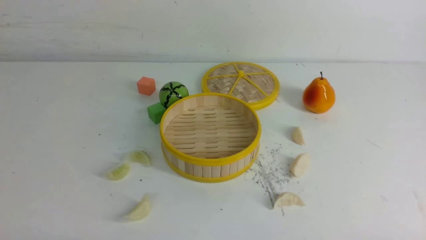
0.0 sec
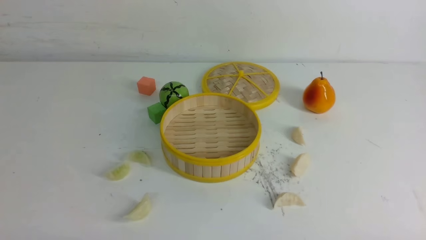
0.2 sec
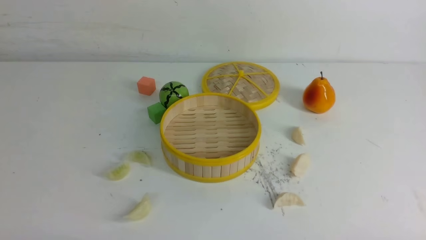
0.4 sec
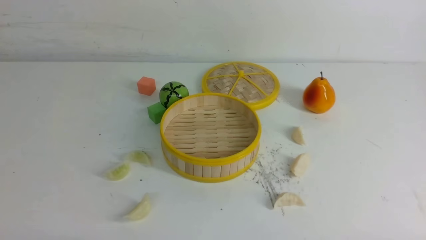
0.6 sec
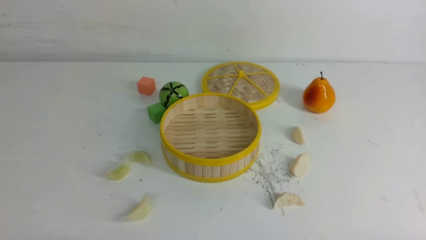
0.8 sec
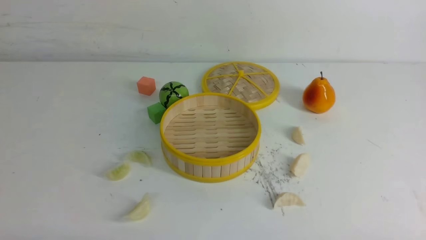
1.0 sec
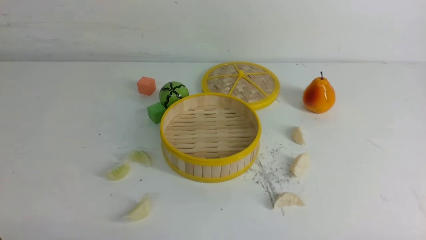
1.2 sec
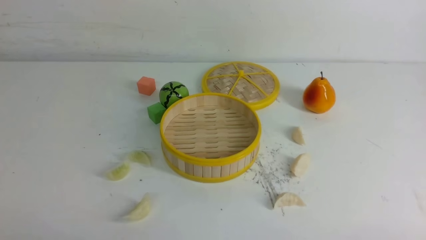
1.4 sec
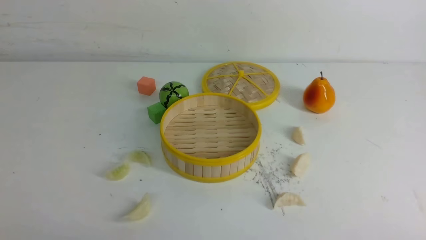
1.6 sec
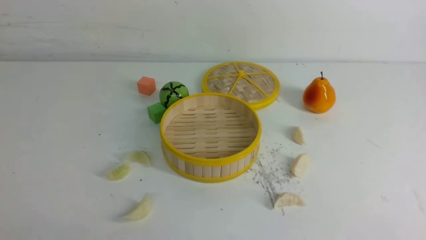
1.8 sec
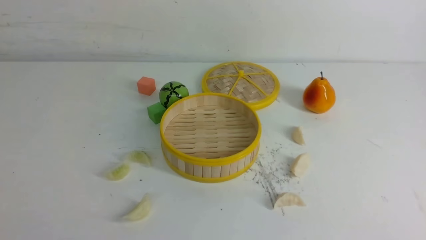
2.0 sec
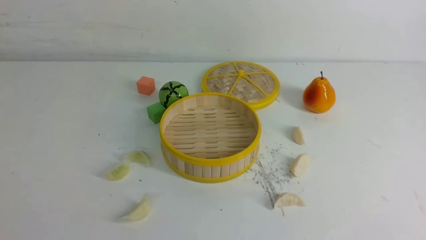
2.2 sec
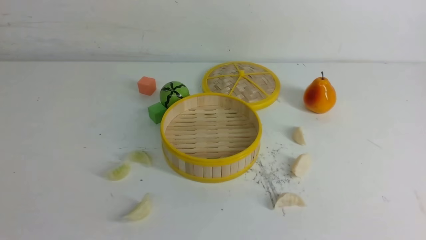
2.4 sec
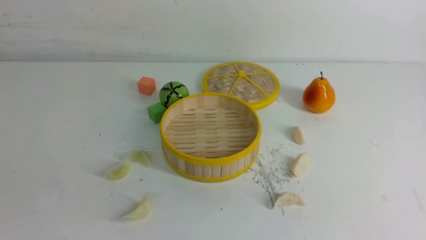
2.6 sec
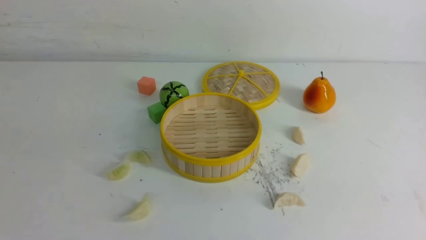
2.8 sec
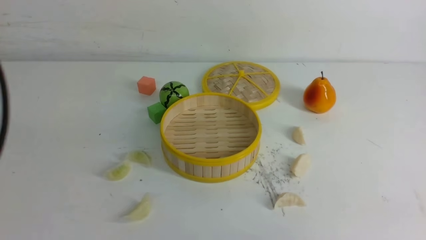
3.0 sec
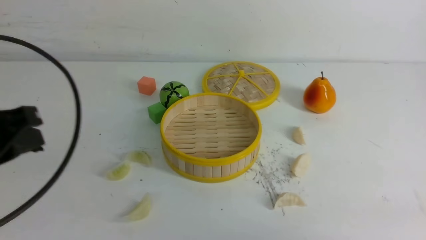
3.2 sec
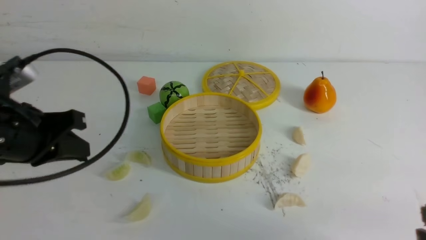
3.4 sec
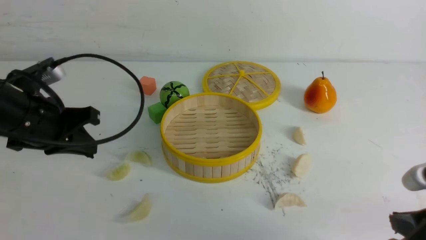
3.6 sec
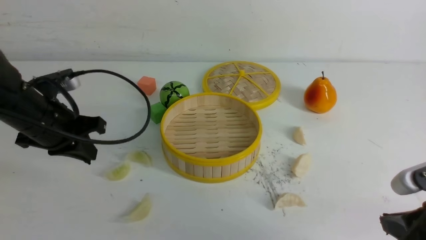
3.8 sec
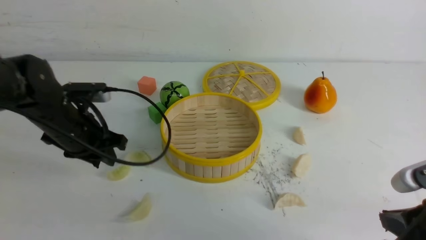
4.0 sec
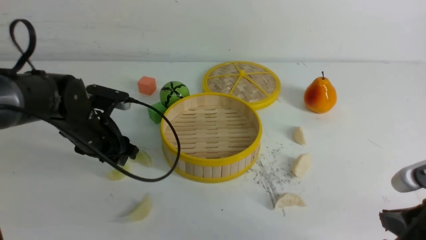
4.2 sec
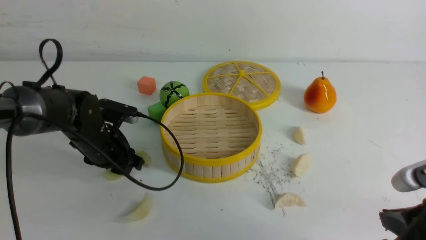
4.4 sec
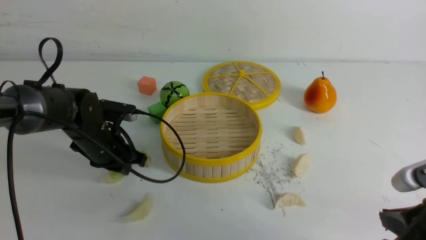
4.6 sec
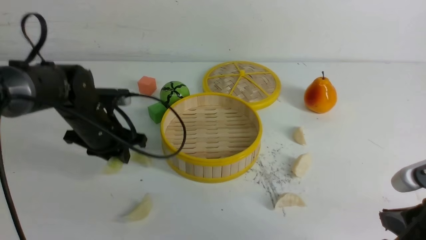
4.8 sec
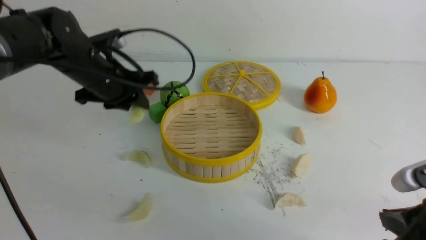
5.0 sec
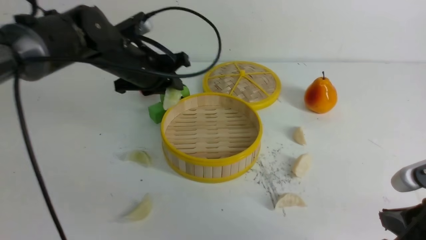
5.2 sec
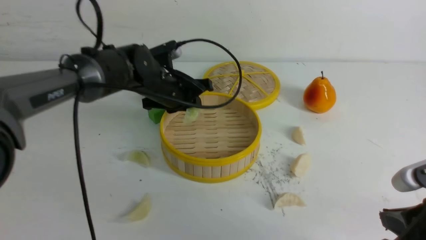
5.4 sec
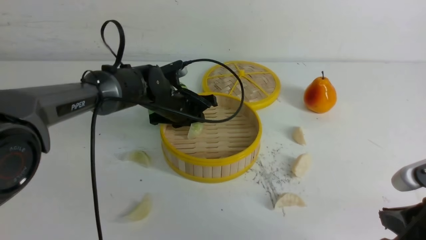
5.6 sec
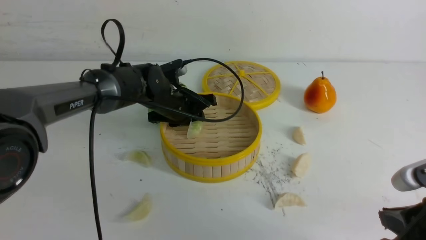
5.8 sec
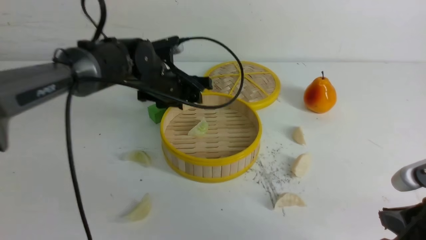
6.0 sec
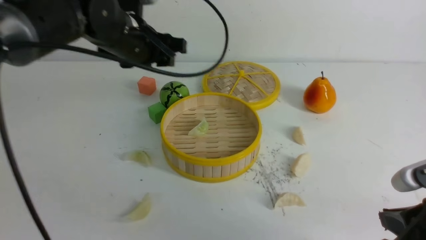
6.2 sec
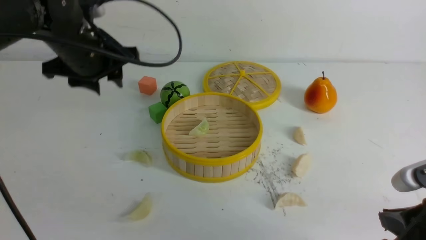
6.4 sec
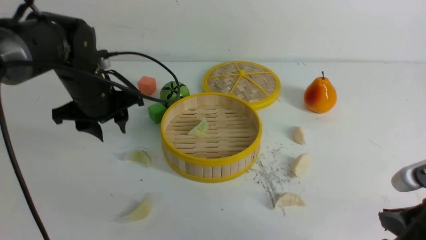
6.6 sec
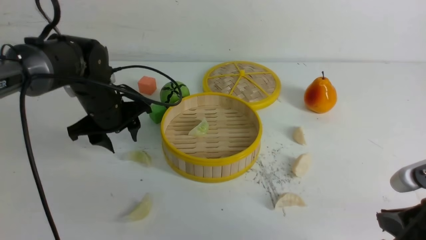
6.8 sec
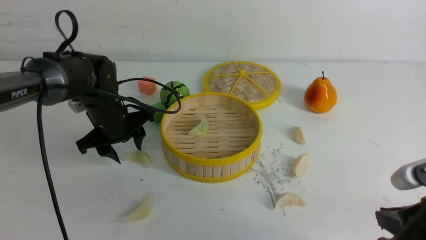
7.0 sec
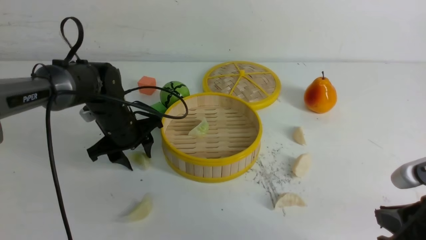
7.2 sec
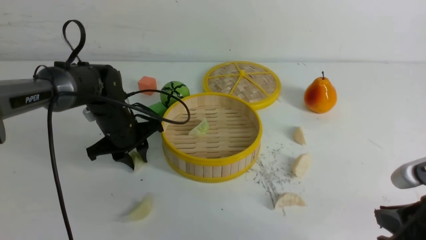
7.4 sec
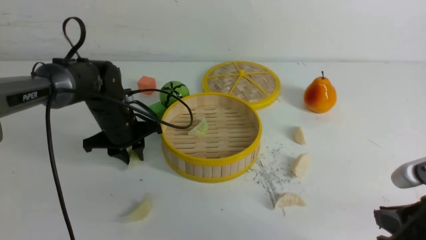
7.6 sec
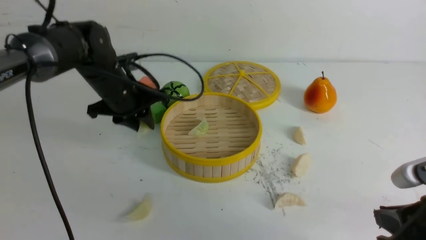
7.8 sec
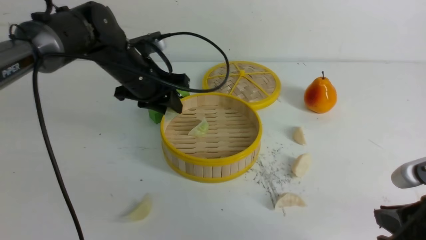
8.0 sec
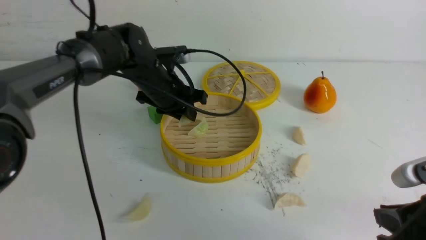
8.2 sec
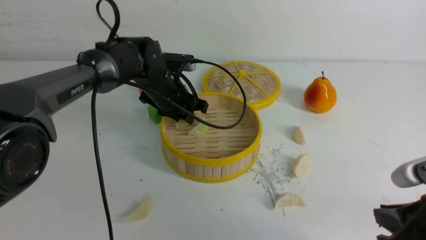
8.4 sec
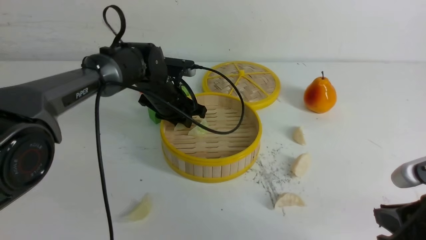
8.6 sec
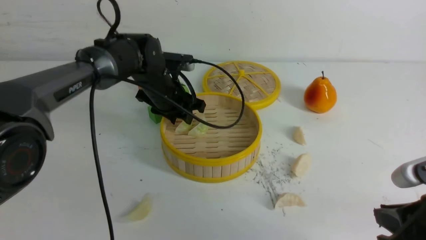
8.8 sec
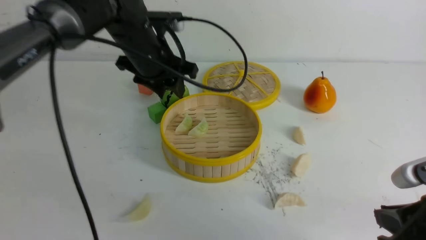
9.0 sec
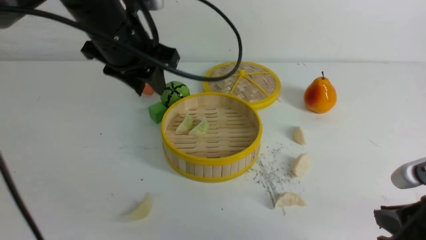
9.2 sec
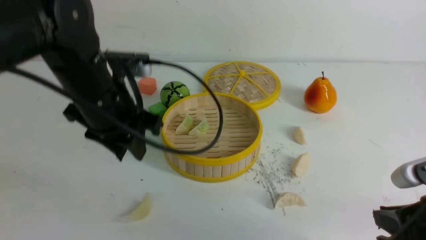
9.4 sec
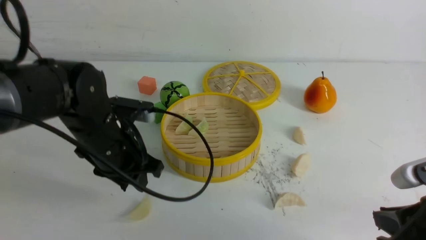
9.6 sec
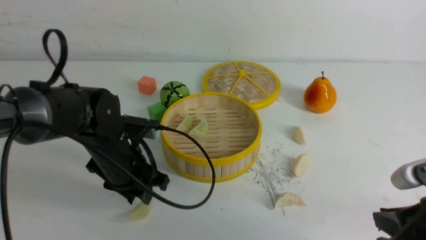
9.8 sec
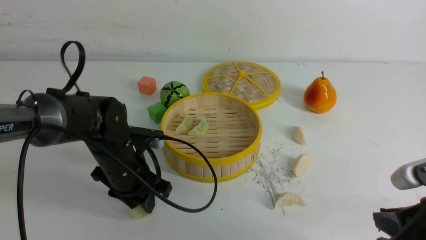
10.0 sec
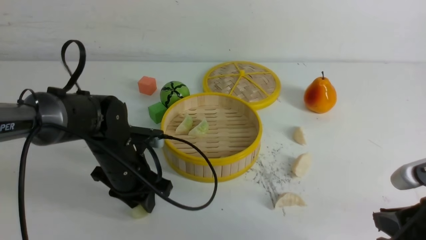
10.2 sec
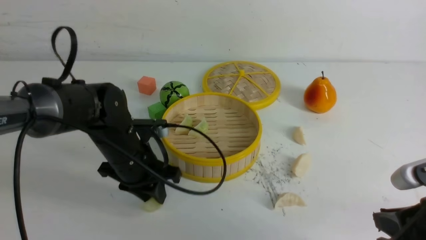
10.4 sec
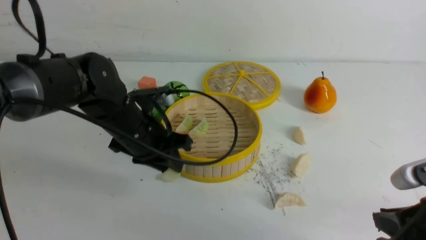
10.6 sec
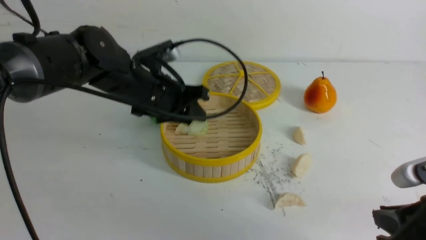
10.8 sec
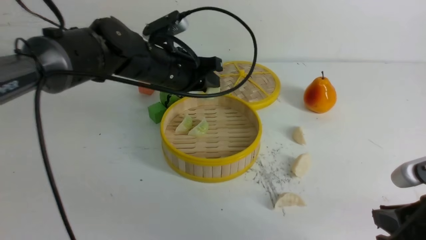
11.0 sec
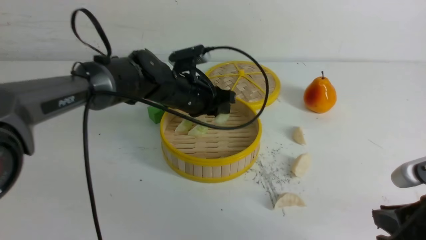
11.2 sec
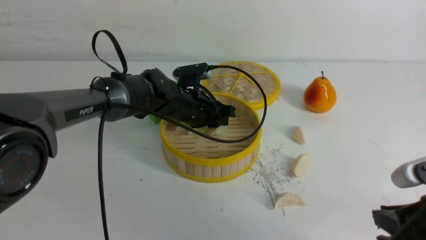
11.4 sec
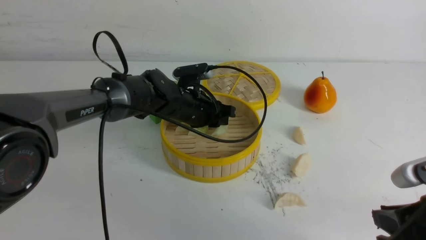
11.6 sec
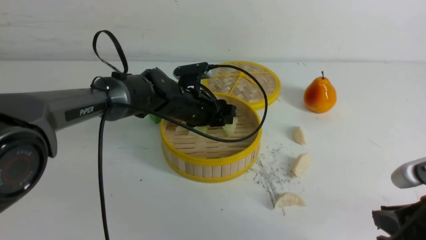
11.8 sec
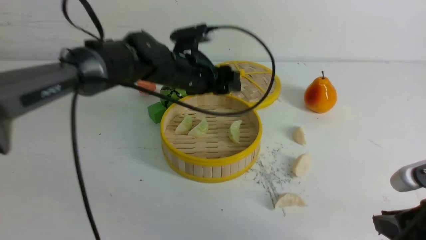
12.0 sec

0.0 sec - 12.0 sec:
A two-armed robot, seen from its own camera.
Task of the whole recording: put the dumplings into the steamer on the white table.
Step, 0.0 sec - 4.6 sec: use the left arm to grab a dumpling.
Step, 4.8 sec - 5.8 sec: use the left arm to put the dumpling into the steamer.
Step, 6.0 sec - 7.6 sec: use the left arm to grab a dumpling.
Step, 7.8 sec - 8.8 sec: use the left arm to put the dumpling into the steamer.
Step, 9.0 sec - 10.2 sec: use the left arm to grab a dumpling.
Step, 10.6 sec - 11.6 sec: use the left arm to put the dumpling into the steamer.
1.6 sec - 3.0 sec: The left gripper is displaced forward and upward by approximately 20 cm, and closes.
3.0 sec - 4.4 sec: The left gripper travels forward and downward by some 25 cm, and opens up, while the right gripper changes place by some 5 cm.
4.4 sec - 6.0 sec: The left gripper is displaced upward, to the right and forward by some 15 cm, and opens up.
6.0 sec - 7.6 sec: The left gripper heads downward and to the left, covering about 10 cm, and closes.
7.6 sec - 9.0 sec: The left gripper swings up and down, about 10 cm each way, with 2 reversals.
9.0 sec - 10.4 sec: The left gripper shifts approximately 15 cm downward and backward.
10.4 sec - 12.0 sec: The left gripper swings up and down, roughly 10 cm each way, with 2 reversals, and opens.

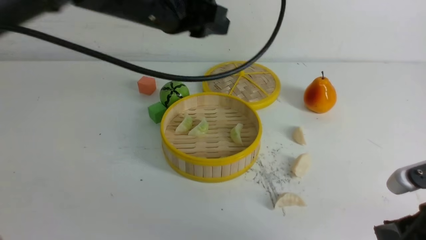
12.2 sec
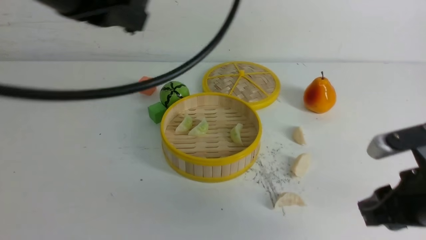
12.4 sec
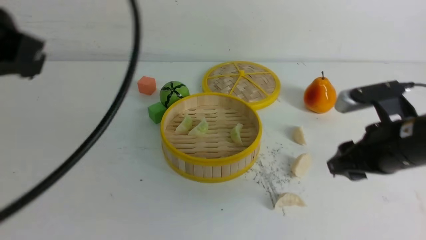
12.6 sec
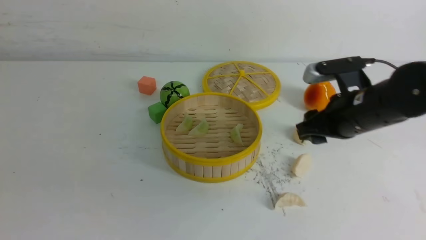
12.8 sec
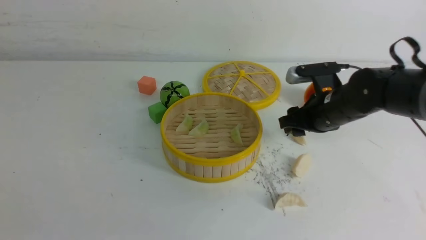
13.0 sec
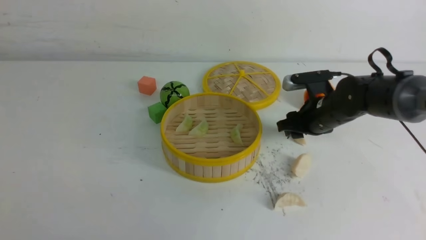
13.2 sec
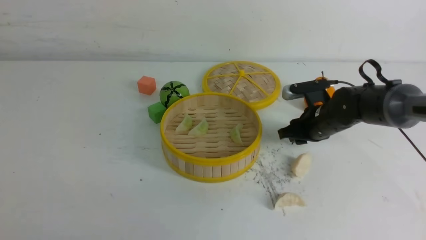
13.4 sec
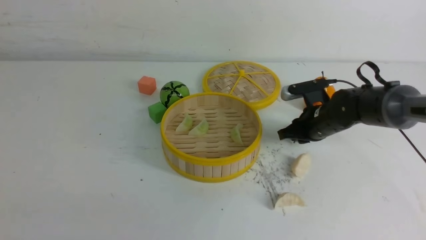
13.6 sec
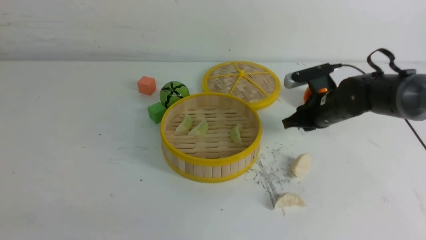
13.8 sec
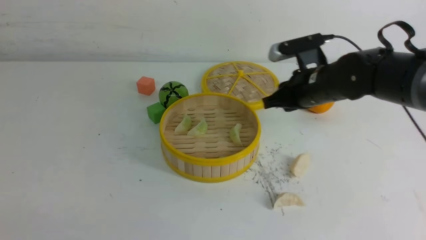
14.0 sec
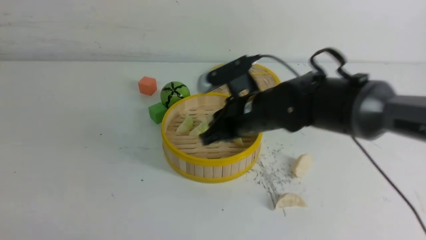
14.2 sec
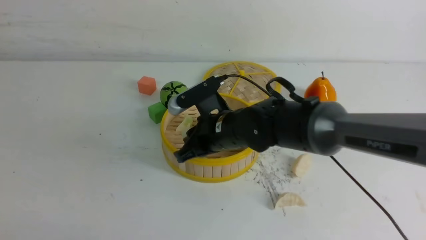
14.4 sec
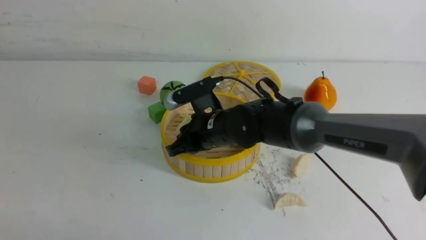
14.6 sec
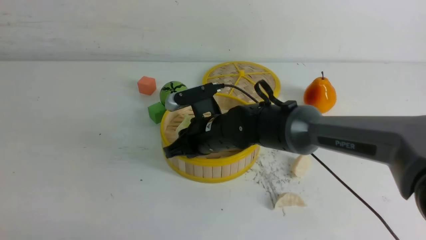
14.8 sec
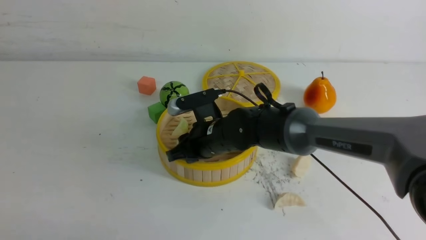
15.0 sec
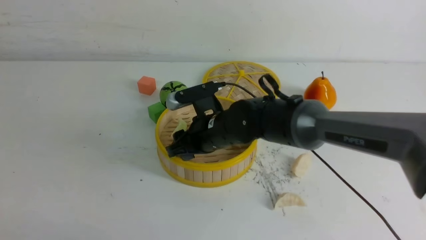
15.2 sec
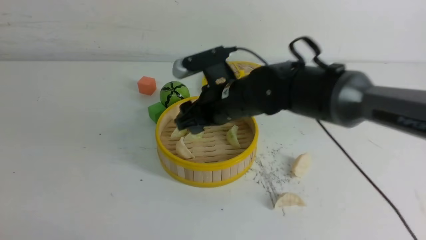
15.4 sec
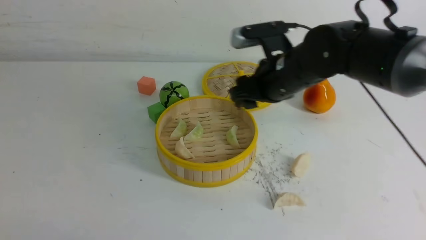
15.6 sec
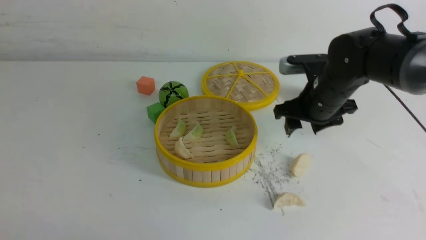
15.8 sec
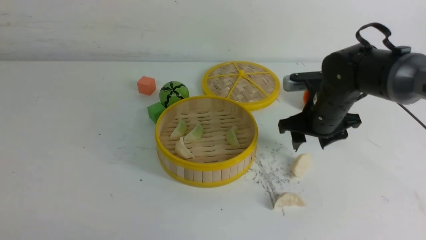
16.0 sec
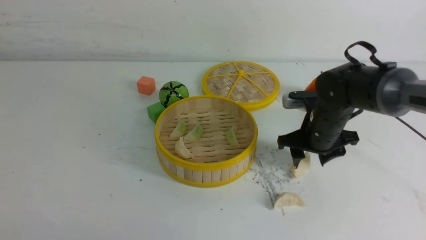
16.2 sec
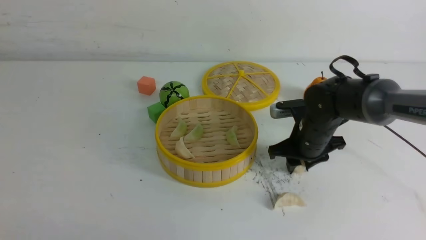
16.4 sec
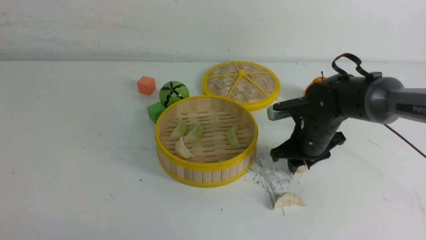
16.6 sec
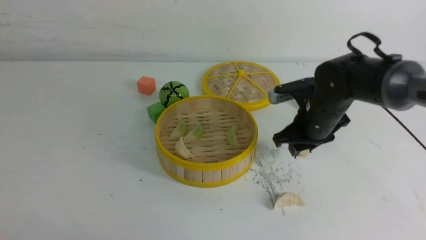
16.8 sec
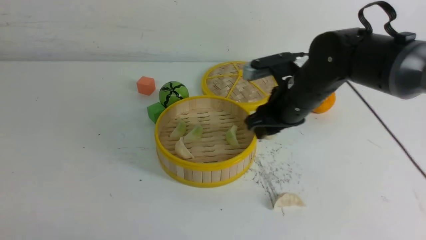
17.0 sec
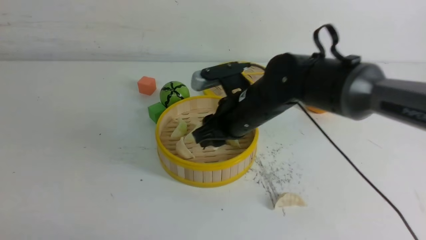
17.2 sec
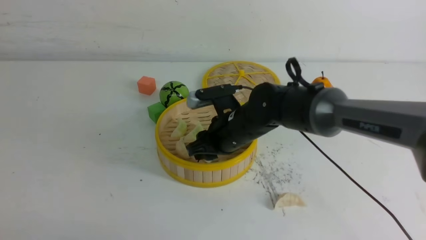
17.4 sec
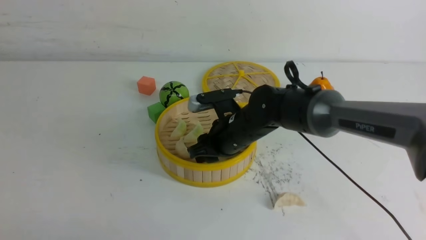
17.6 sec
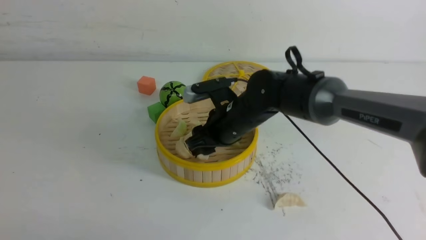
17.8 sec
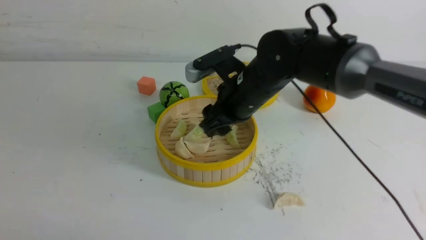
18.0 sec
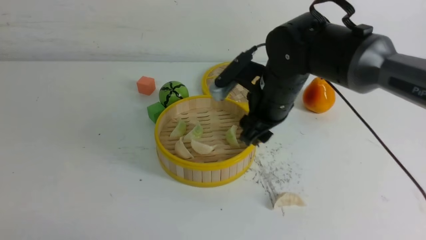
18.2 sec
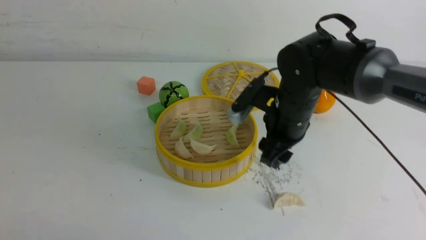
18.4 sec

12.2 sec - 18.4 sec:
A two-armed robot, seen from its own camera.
Task of the whole recording: put the dumplings into the steamer on the white table.
Step, 12.2 sec - 13.4 sec: use the right arm to grab a dumpling.
Step, 13.6 sec - 14.0 sec: use the right arm to put the dumpling into the steamer.
Step, 14.2 sec - 16.6 sec: use the right arm to grab a dumpling.
Step, 16.8 sec - 17.8 sec: use the right arm to put the dumpling into the steamer.
12.2 sec - 13.8 sec: The right gripper travels forward by approximately 25 cm, and opens, then closes again, while the left gripper moves backward, to the left and downward, about 40 cm, and closes up.
13.8 sec - 15.4 sec: The right gripper moves to the left, about 15 cm, and opens.
15.4 sec - 16.8 sec: The right gripper travels to the right by about 10 cm, and closes.
16.8 sec - 18.4 sec: The right gripper reaches some 10 cm to the left, then returns.
